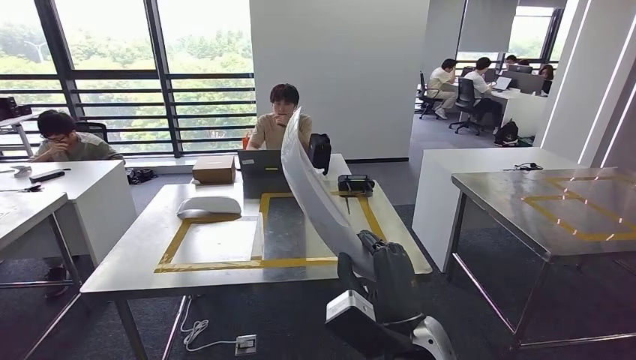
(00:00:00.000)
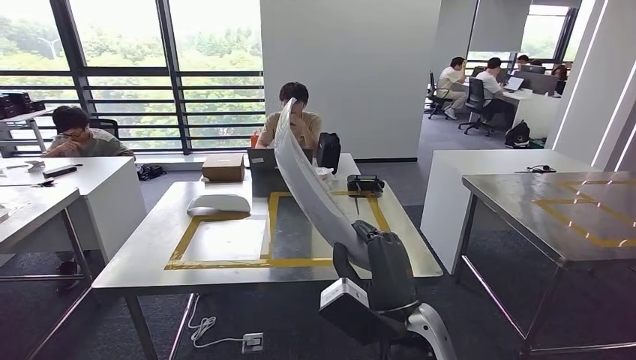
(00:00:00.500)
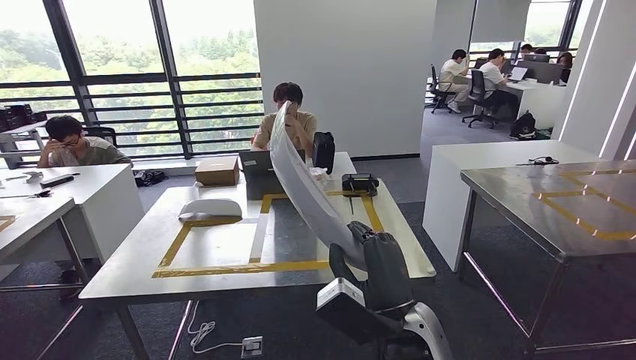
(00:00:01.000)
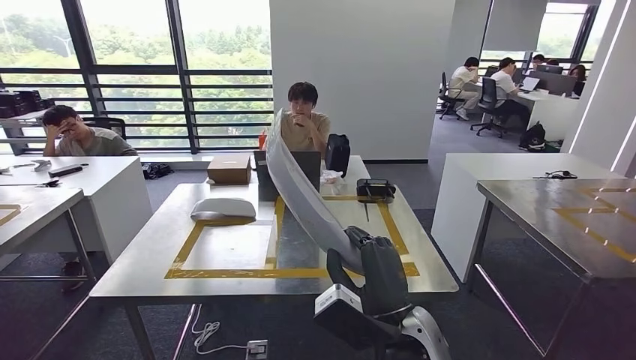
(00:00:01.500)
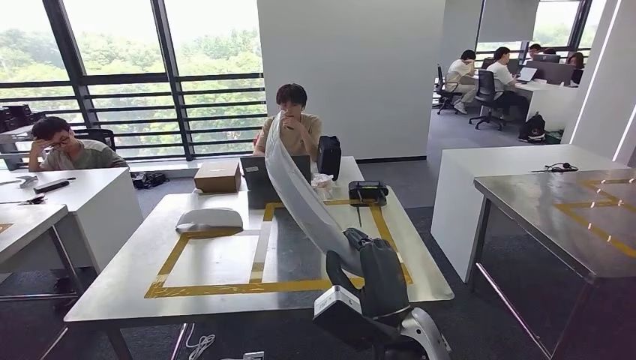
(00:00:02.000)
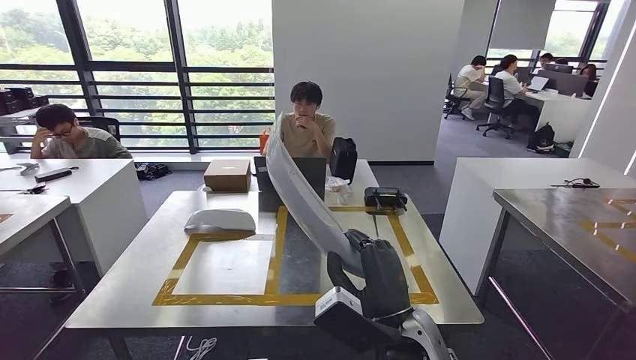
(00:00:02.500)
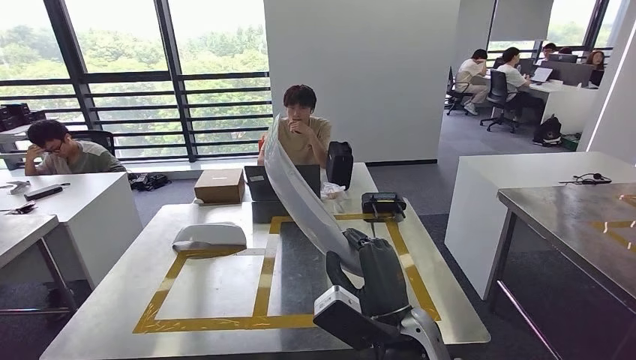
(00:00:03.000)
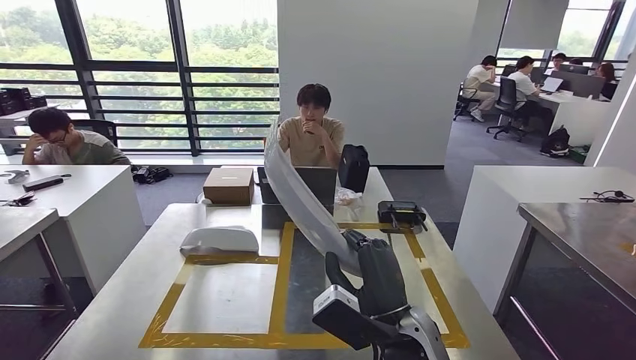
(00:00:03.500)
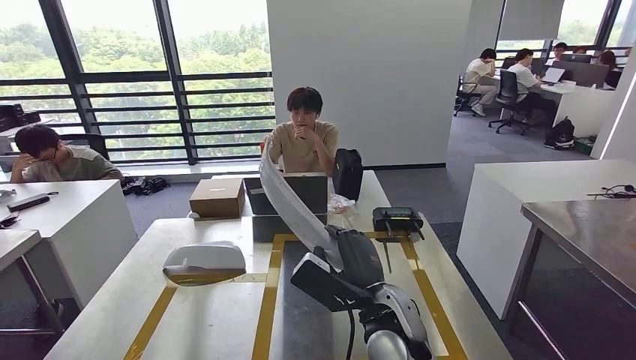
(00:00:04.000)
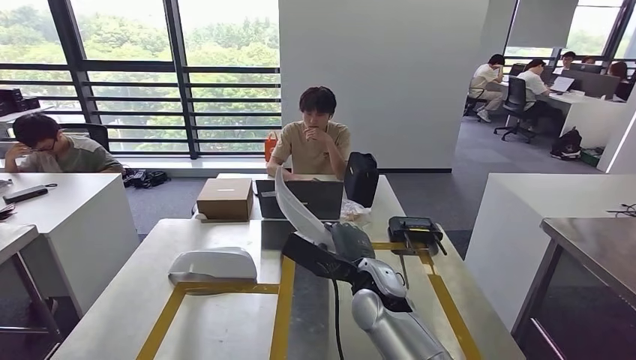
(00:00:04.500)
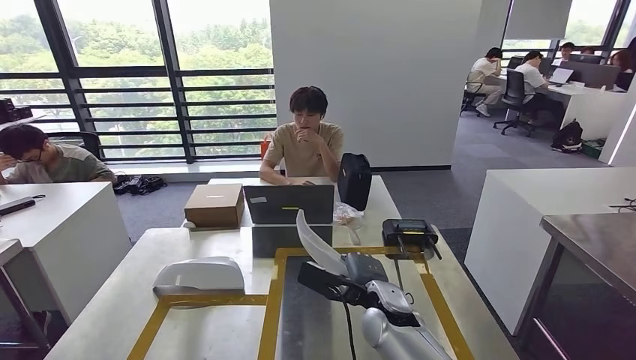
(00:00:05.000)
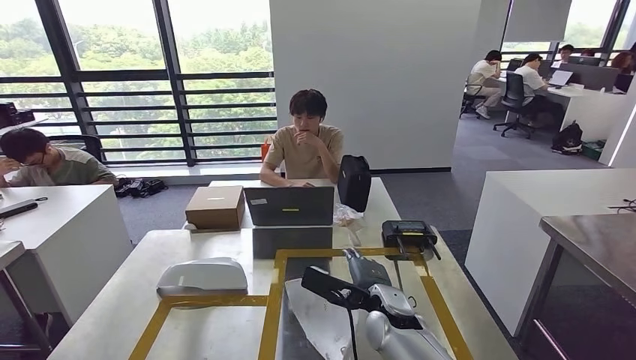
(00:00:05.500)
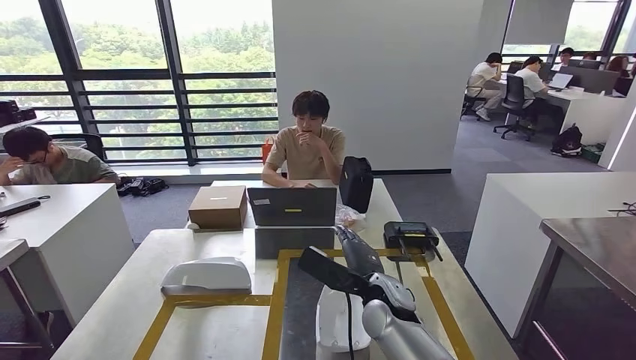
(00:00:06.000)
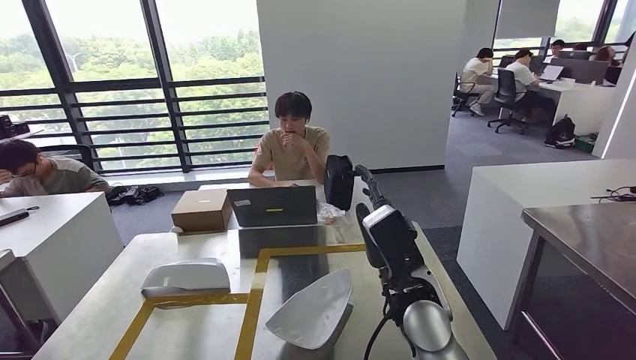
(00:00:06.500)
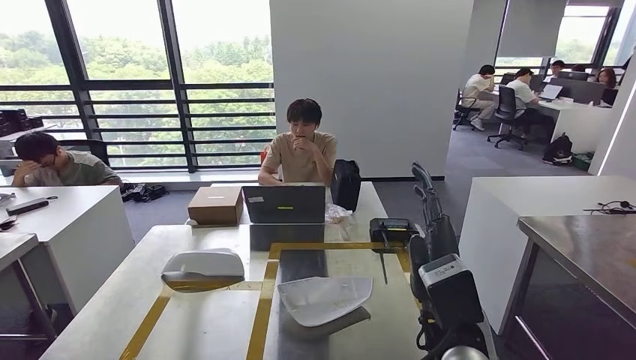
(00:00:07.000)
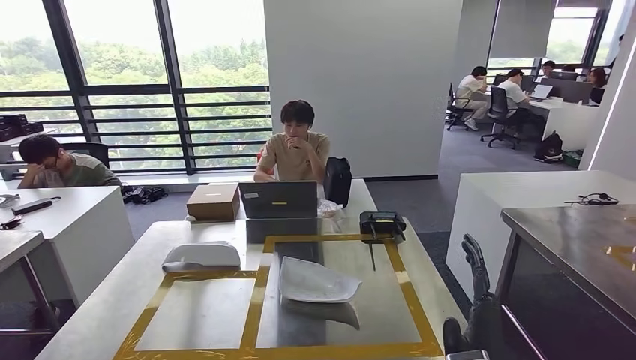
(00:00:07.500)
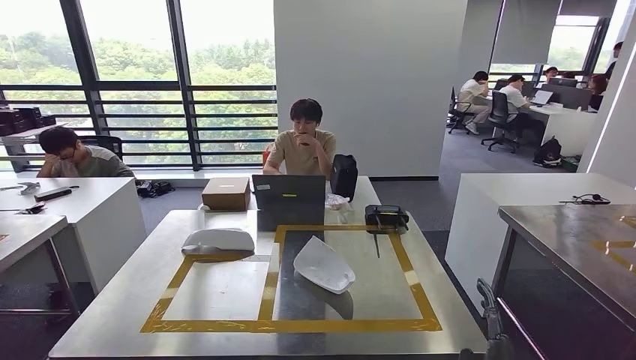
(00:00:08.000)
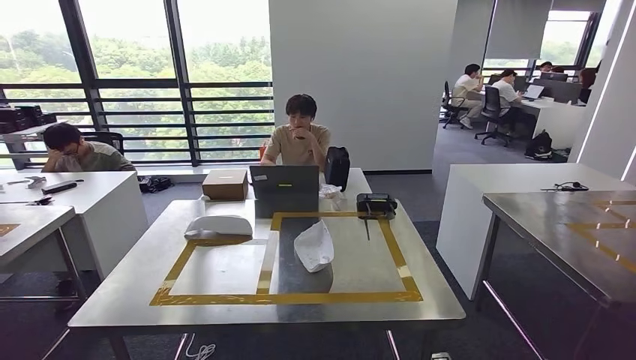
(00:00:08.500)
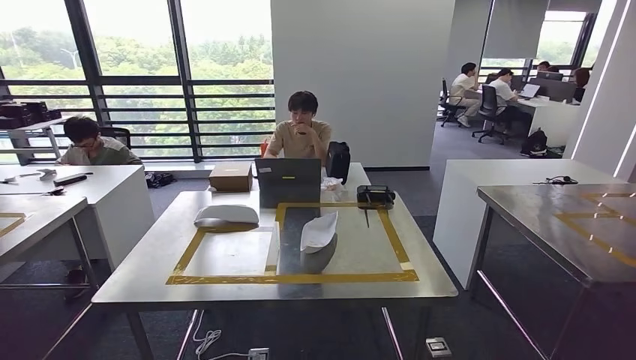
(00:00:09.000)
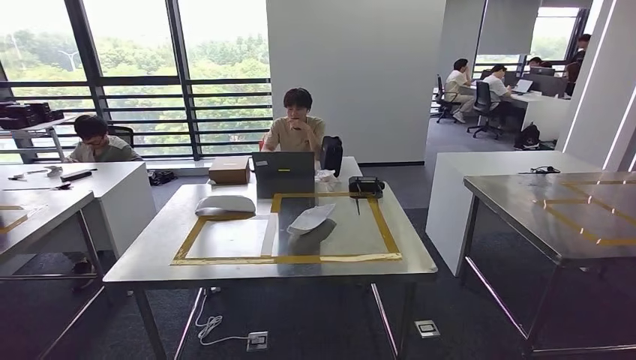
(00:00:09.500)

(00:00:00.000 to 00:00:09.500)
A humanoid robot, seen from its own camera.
Step, 00:00:00.500 - 00:00:07.000: Insert the small component into the corresponding slot on the workbench.
Step, 00:00:08.500 - 00:00:09.500: Move to the initial position of the workbench.
